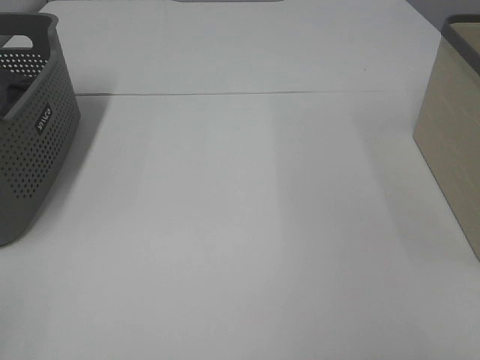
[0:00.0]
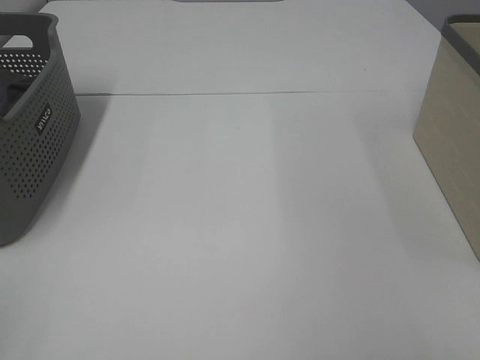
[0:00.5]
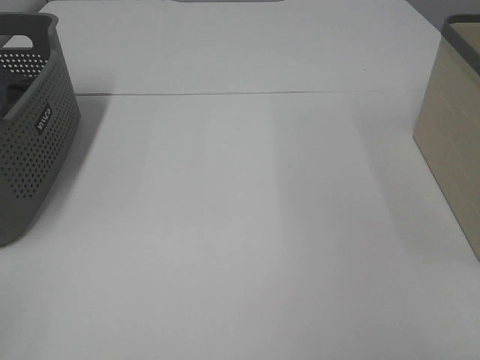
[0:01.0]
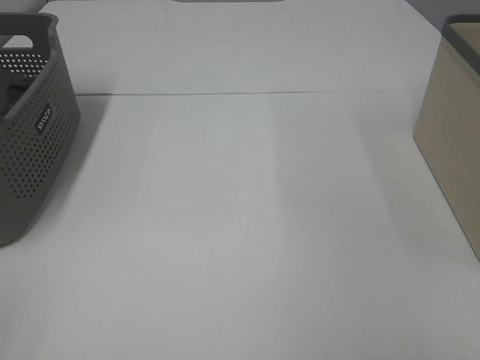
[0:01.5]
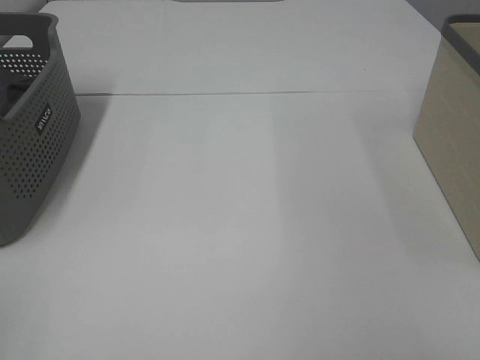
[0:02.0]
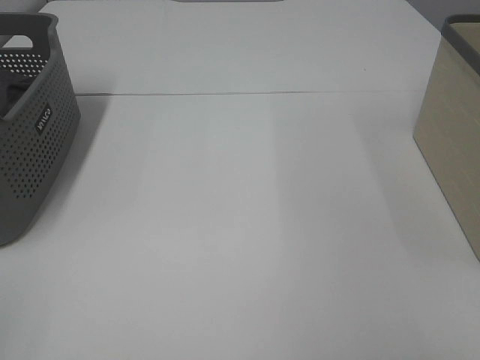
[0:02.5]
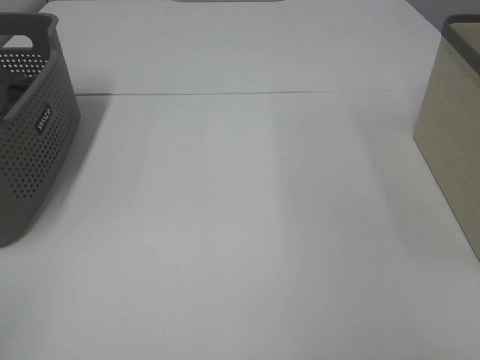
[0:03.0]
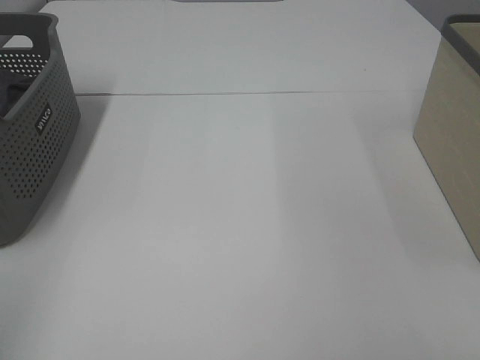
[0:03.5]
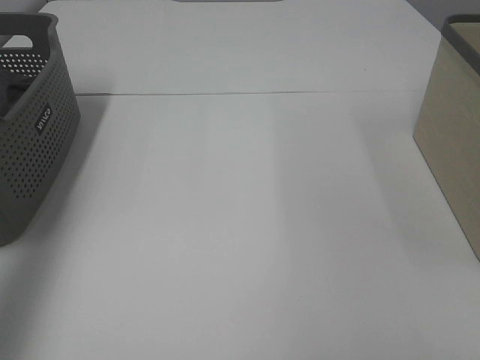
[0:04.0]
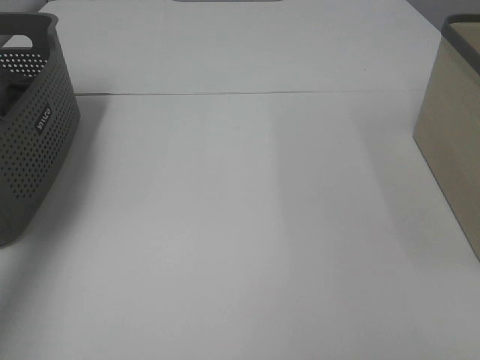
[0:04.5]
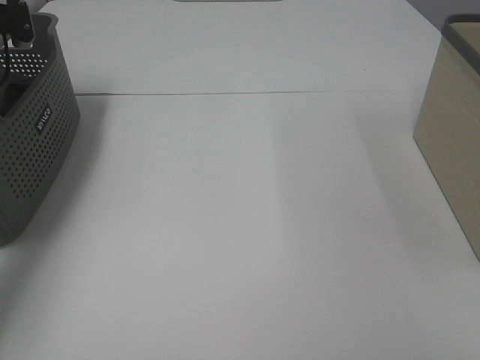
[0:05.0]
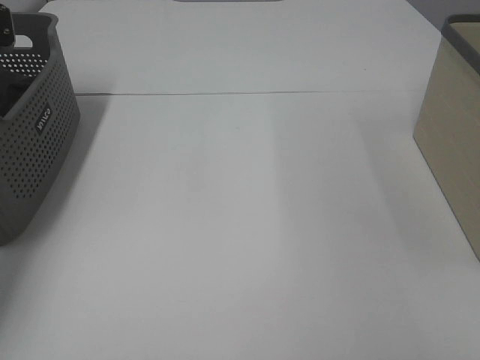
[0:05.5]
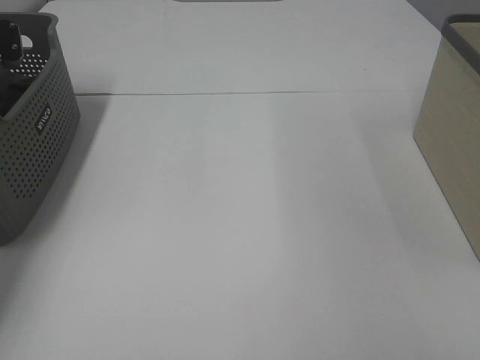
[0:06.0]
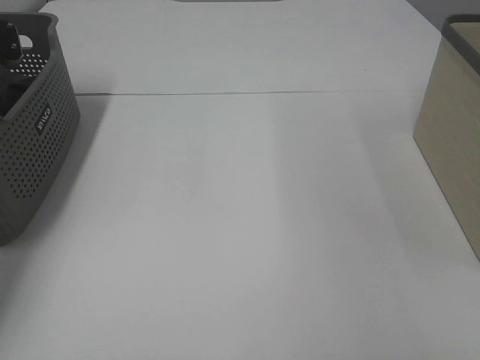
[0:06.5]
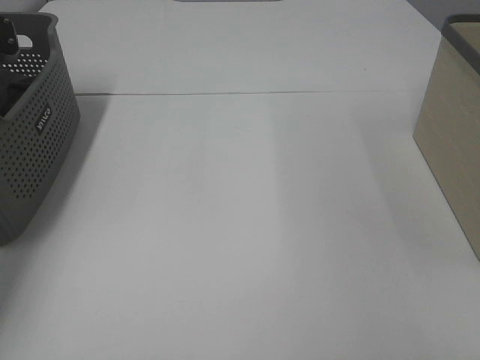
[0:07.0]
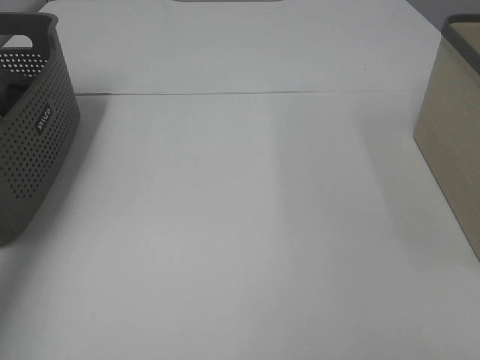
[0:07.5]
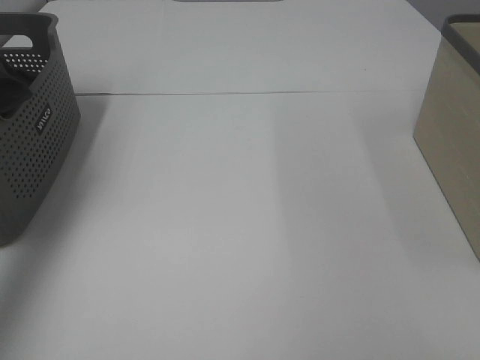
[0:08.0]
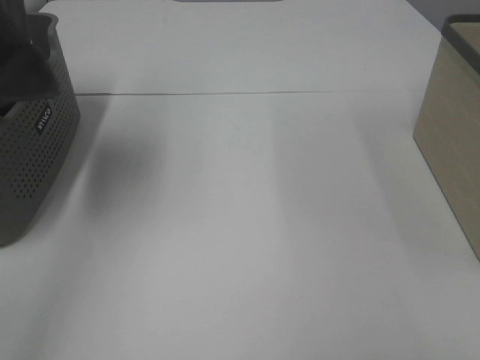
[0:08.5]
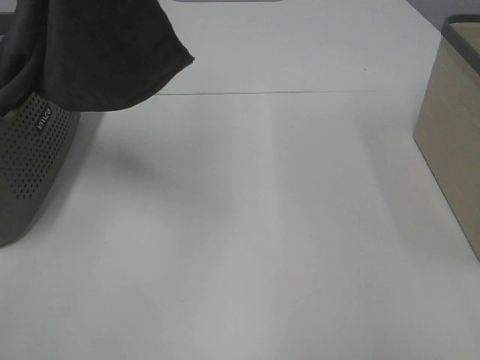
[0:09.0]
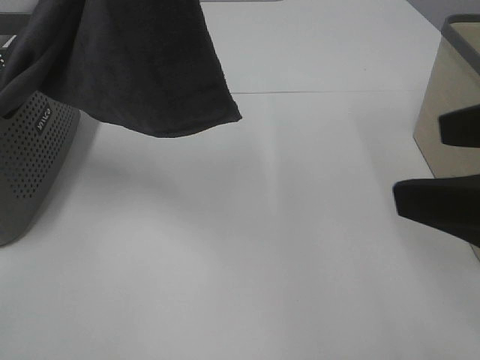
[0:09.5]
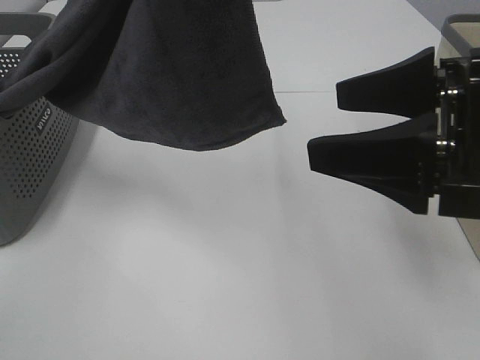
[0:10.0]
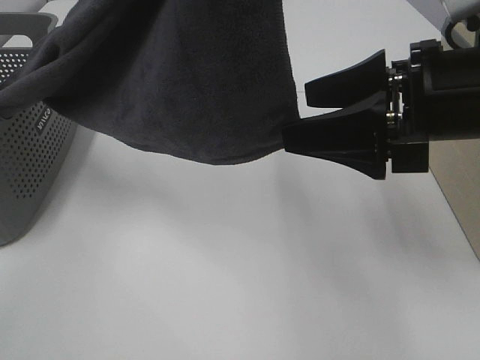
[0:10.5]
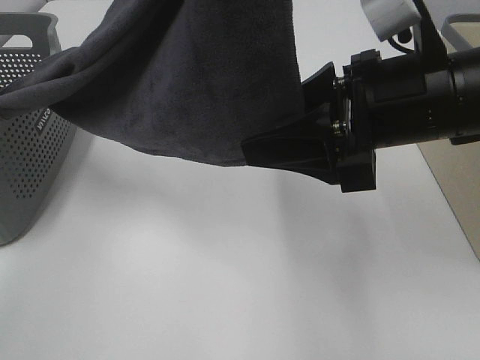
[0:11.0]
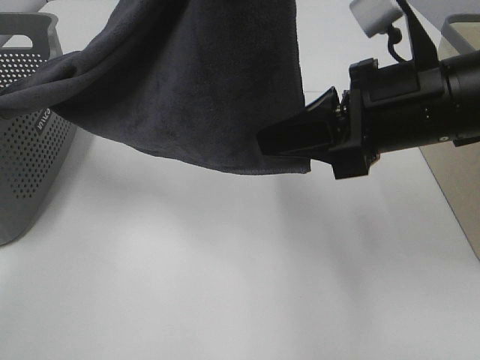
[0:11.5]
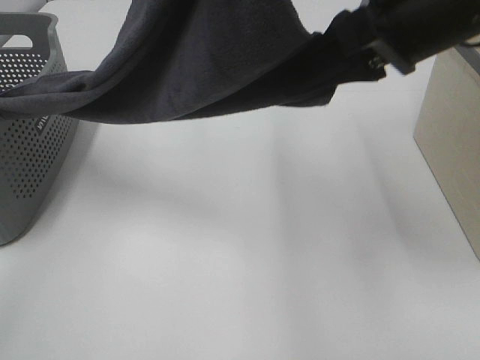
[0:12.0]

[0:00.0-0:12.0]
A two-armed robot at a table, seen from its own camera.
Task of the whole recording: Remove the towel and place it.
Step, 0:08.0 to 0:11.5: Right hand: grab a corner of the grey towel and straighten it.
0:00.0 to 0:02.0: The two grippers keep their place.
0:02.0 to 0:04.0: The left gripper shifts approximately 25 cm forward and upward.
0:04.0 to 0:06.0: The left gripper is displaced forward and downward by some 35 cm.
0:06.0 to 0:08.0: The left gripper goes approximately 30 cm upward and backward, and closes.
0:08.0 to 0:10.0: The left gripper goes roughly 25 cm to the right and backward, while the right gripper is displaced forward and to the left by roughly 20 cm.
0:10.0 to 0:12.0: The right gripper goes some 10 cm forward and upward, and closes.

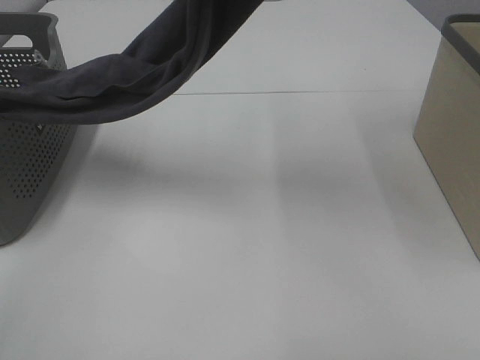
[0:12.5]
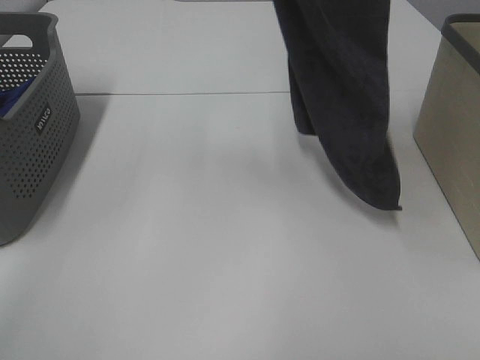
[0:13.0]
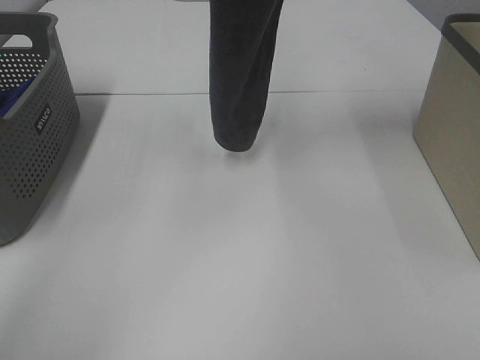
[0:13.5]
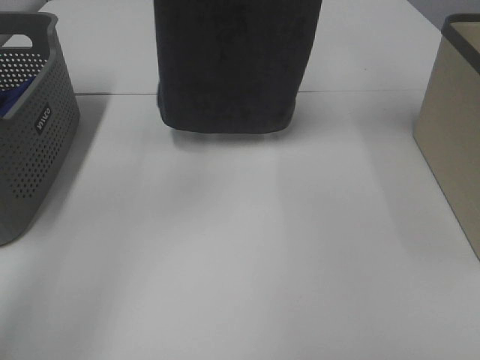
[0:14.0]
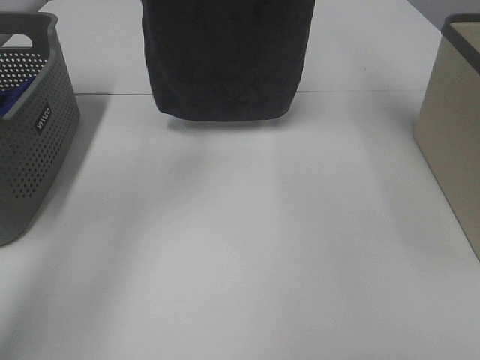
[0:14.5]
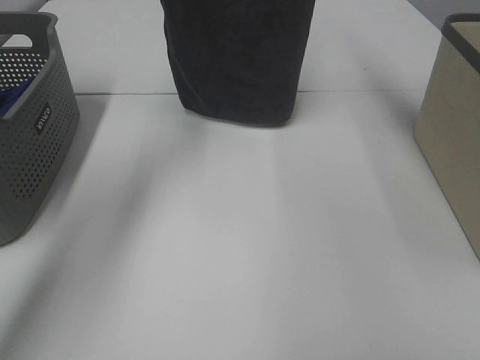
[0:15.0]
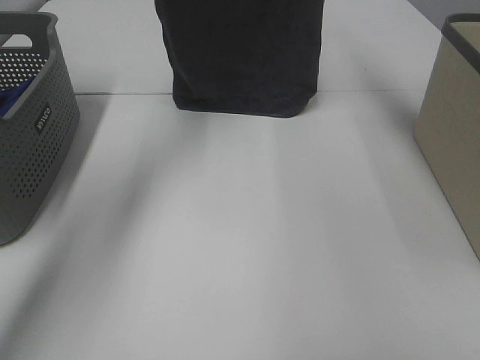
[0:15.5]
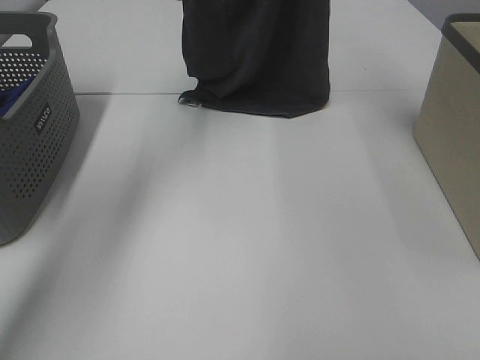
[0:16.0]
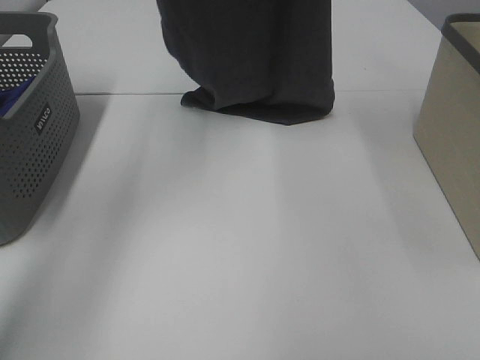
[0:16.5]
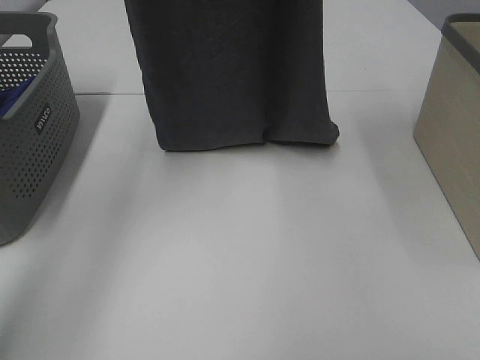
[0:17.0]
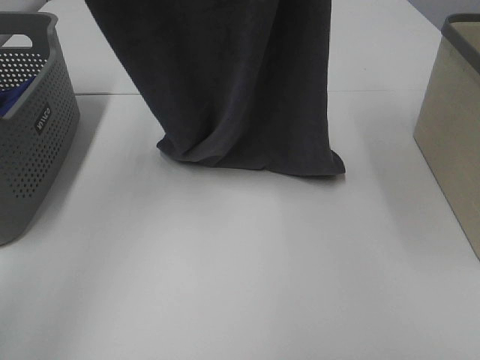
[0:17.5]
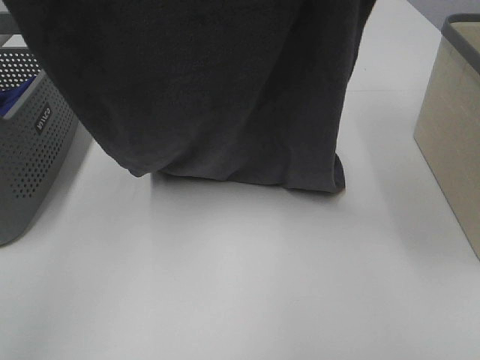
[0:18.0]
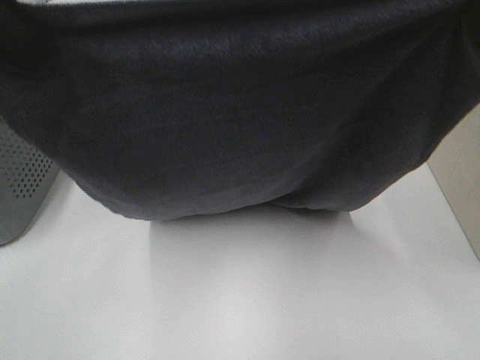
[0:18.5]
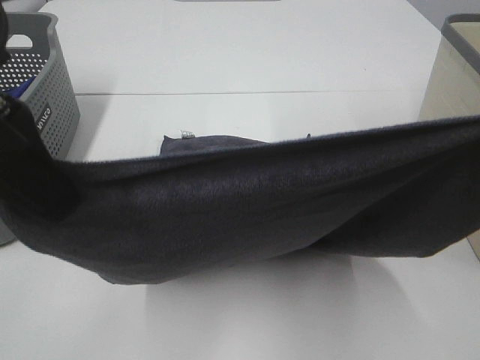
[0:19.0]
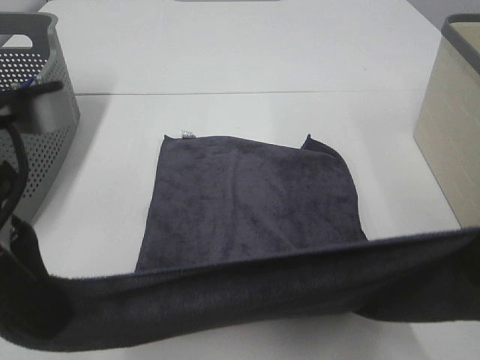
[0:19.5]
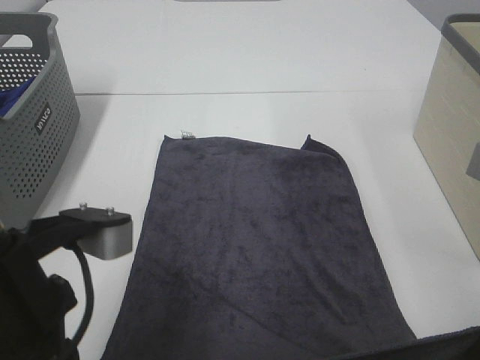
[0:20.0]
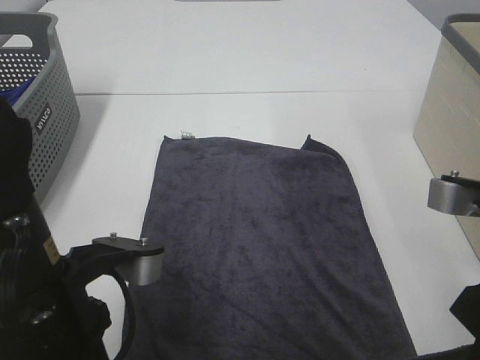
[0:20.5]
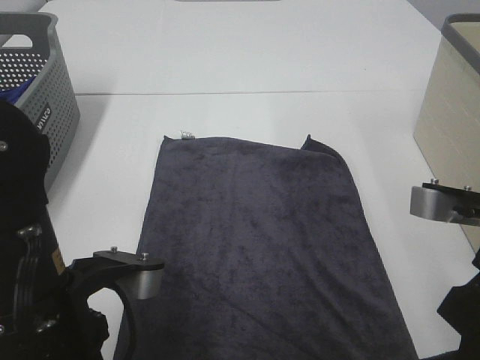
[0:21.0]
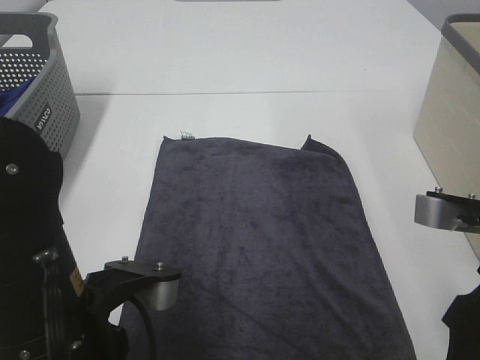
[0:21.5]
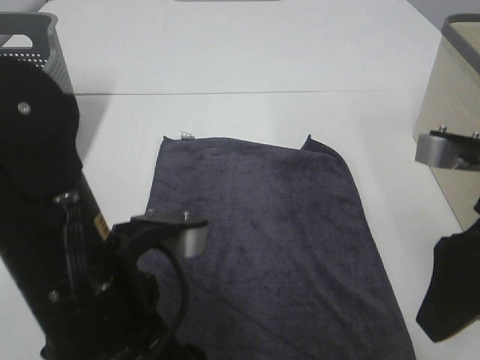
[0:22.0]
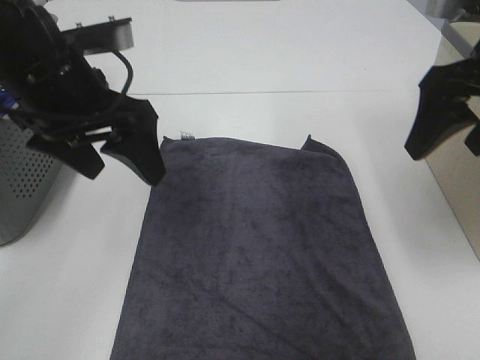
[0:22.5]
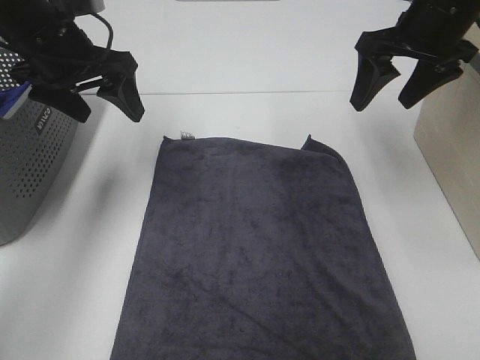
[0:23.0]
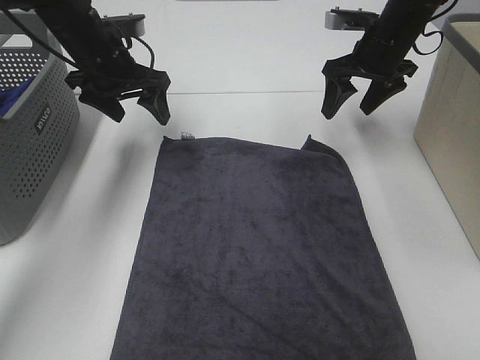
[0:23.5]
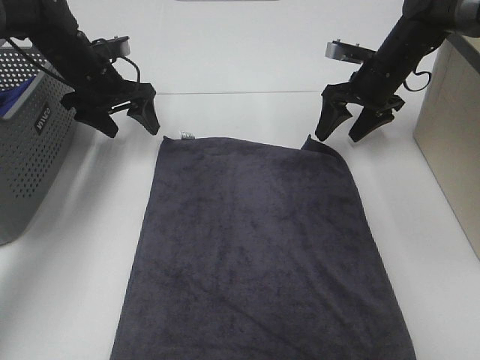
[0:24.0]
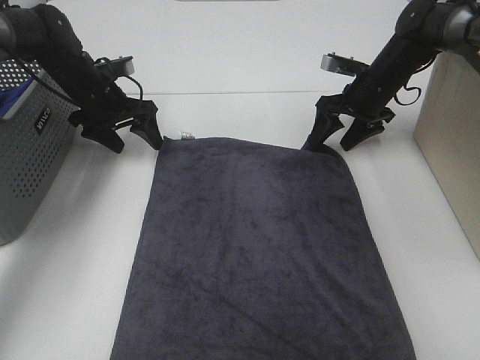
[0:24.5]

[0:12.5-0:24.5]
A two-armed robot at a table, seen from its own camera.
Task of the whole recording: Remove the towel and place it.
Step, 0:12.5 to 0:17.5: Left hand: spread the grey towel flat on the table.
Step, 0:12.5 to 0:17.5: Right hand: spread the grey towel flat on the table.
0:12.5 to 0:14.5: Both grippers travel together forward, about 15 cm.
0:16.5 to 0:18.5: Both grippers move backward, approximately 25 cm.
0:18.5 to 0:20.5: The two grippers go approximately 20 cm downward.
0:20.5 to 0:22.5: The two grippers go roughly 15 cm forward and upward. The right gripper opens up, while the left gripper opens up.
0:22.5 to 0:24.5: Both grippers travel together forward and downward, some 25 cm.

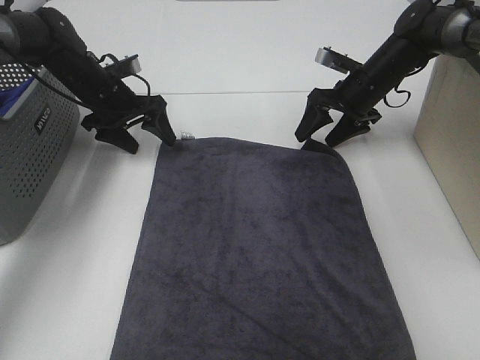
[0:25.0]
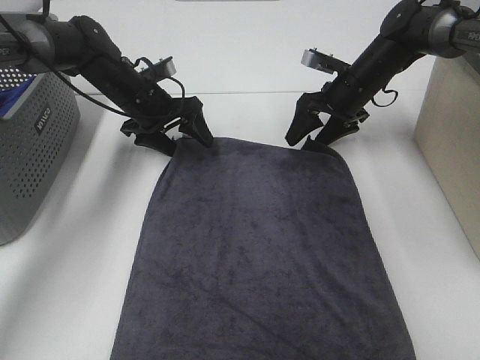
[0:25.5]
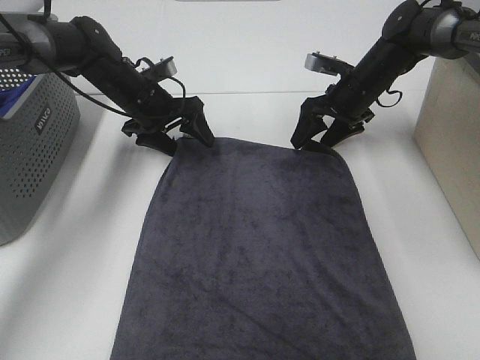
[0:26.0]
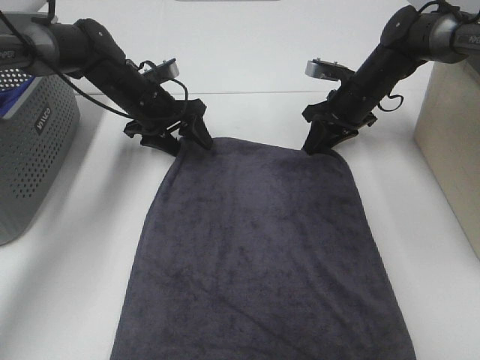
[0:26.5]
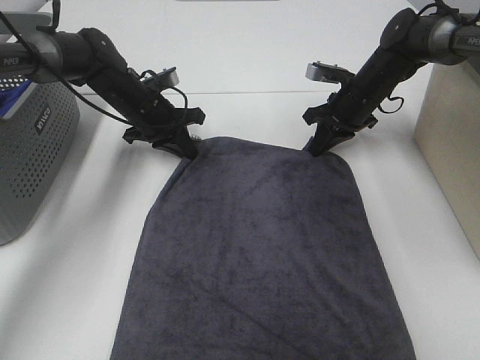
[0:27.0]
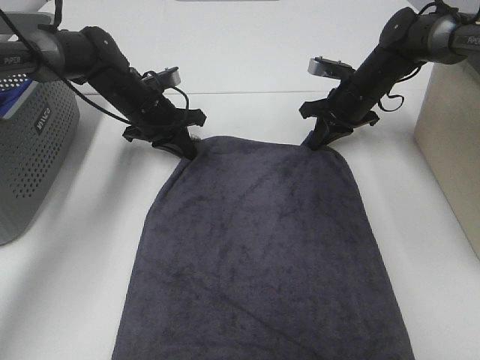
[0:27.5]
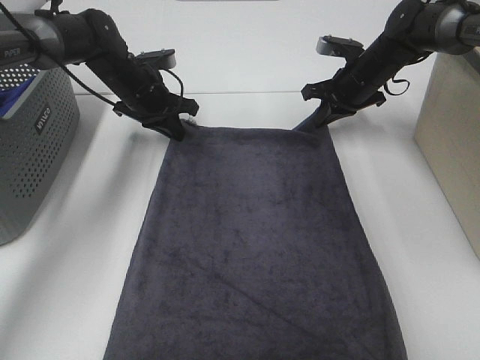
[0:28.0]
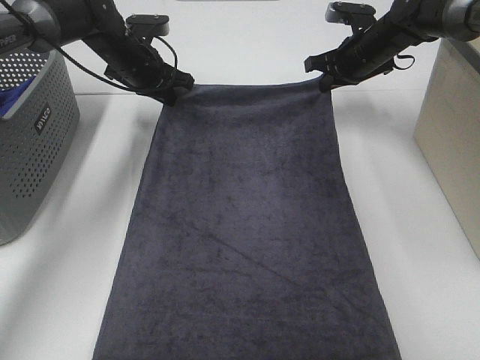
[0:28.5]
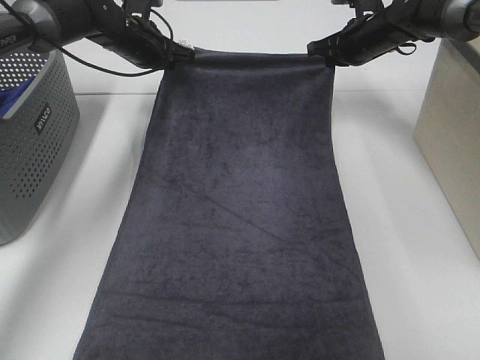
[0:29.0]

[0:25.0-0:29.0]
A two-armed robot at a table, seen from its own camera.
Task of the whole recording: Remove the towel and place it.
0:25.0 to 0:27.0: The right gripper closes. The left gripper goes some 5 cm to the right, and closes.
0:27.0 to 0:29.0: Both grippers move upward and forward, about 10 cm.
